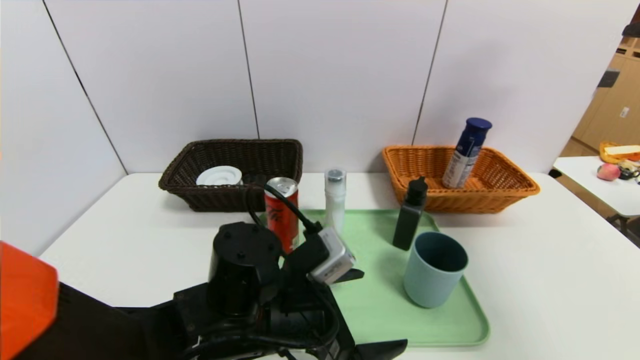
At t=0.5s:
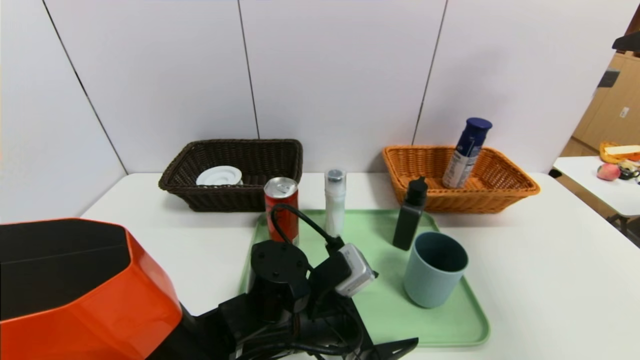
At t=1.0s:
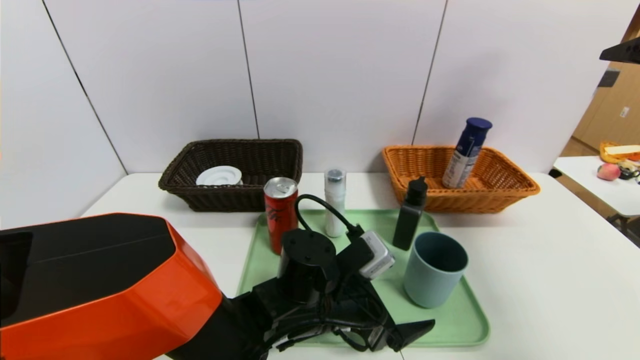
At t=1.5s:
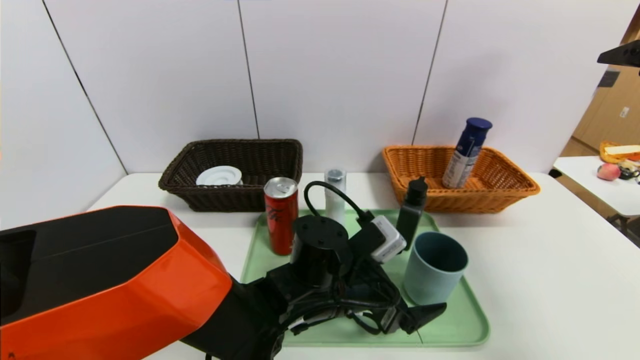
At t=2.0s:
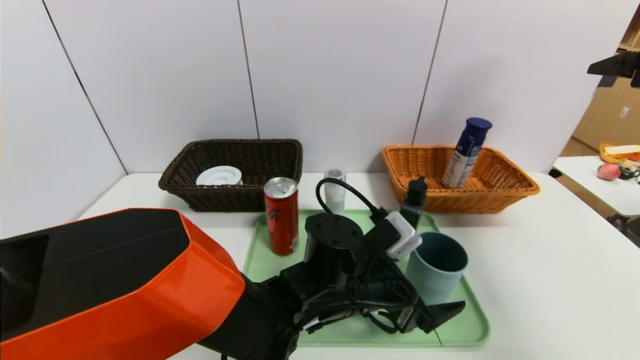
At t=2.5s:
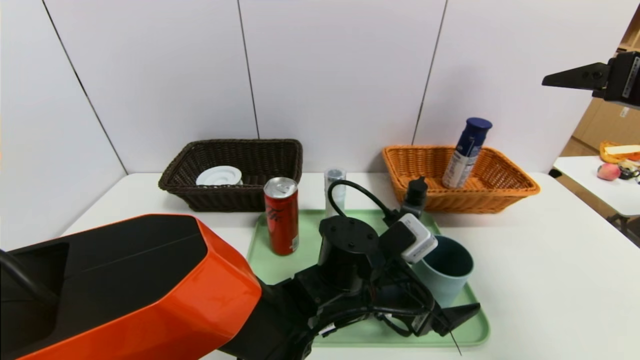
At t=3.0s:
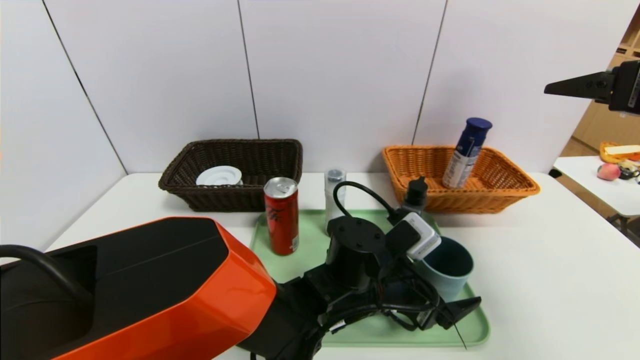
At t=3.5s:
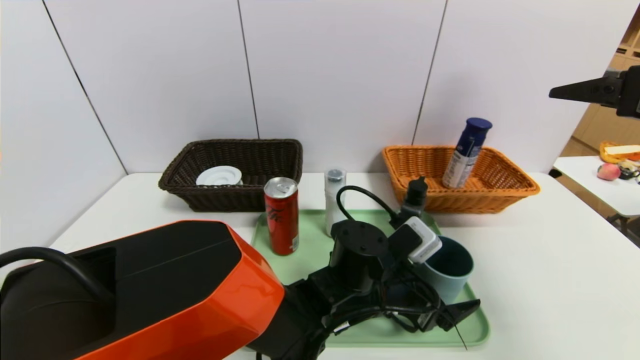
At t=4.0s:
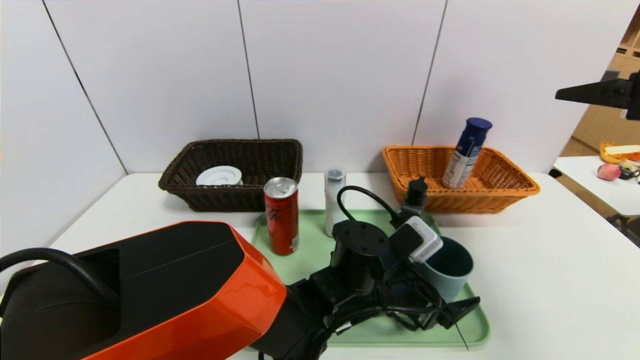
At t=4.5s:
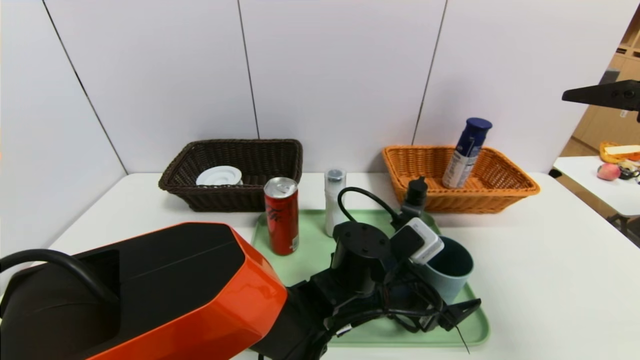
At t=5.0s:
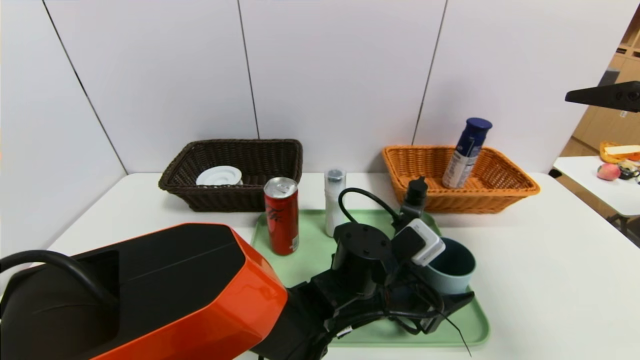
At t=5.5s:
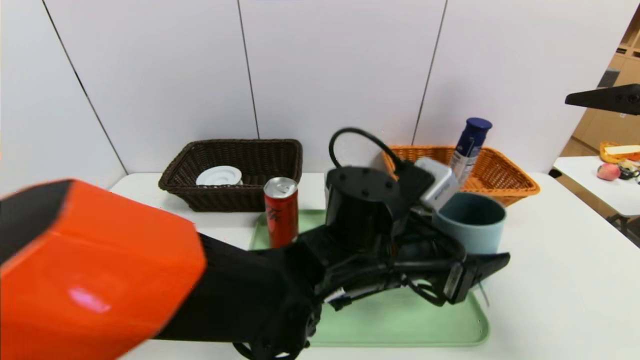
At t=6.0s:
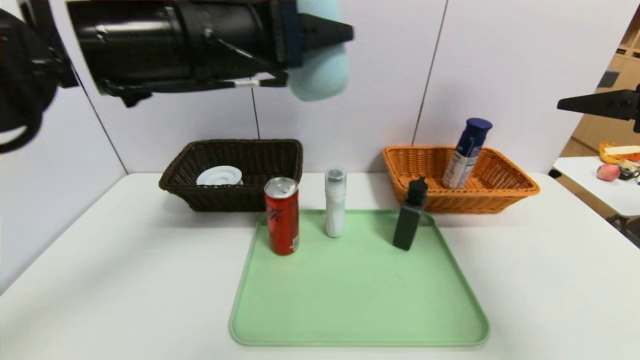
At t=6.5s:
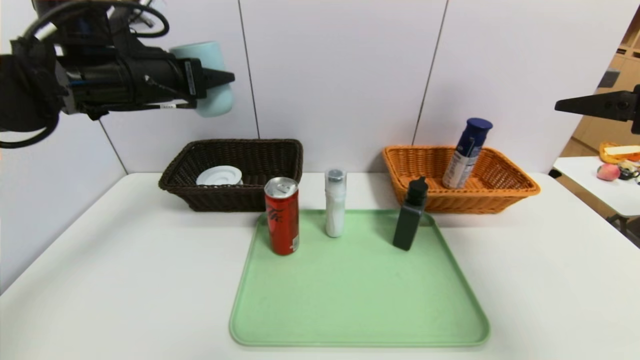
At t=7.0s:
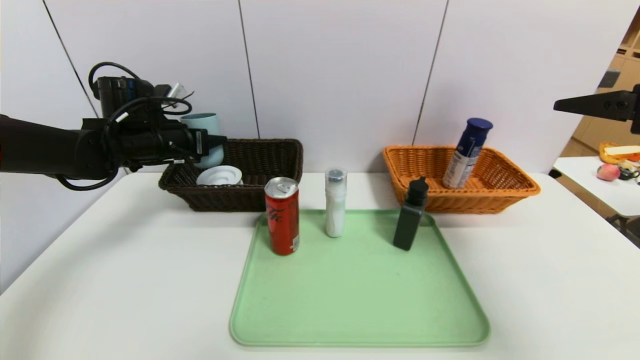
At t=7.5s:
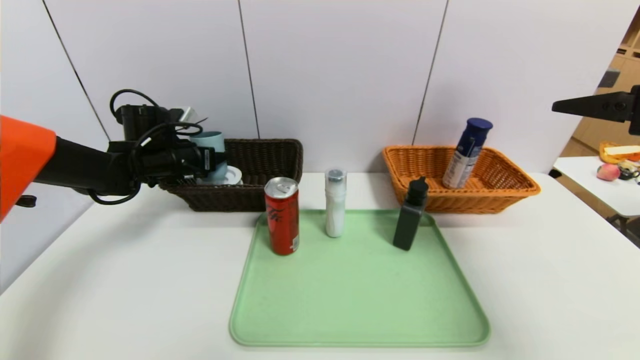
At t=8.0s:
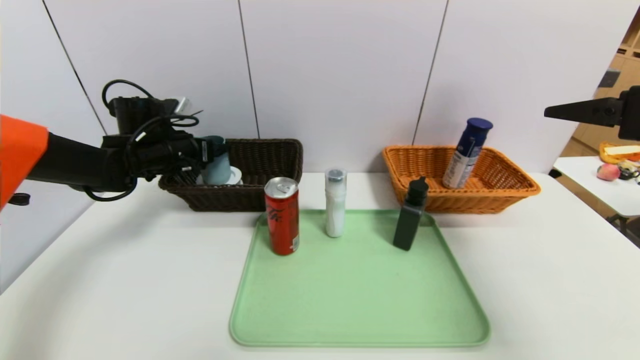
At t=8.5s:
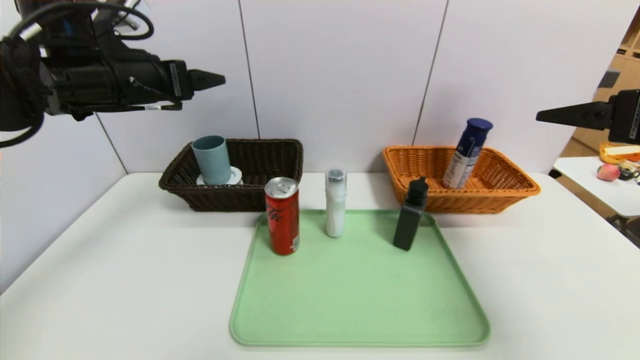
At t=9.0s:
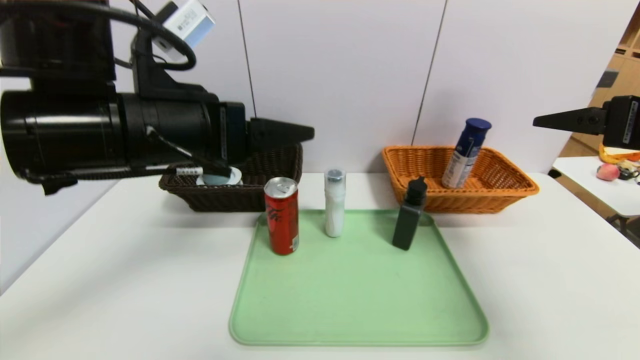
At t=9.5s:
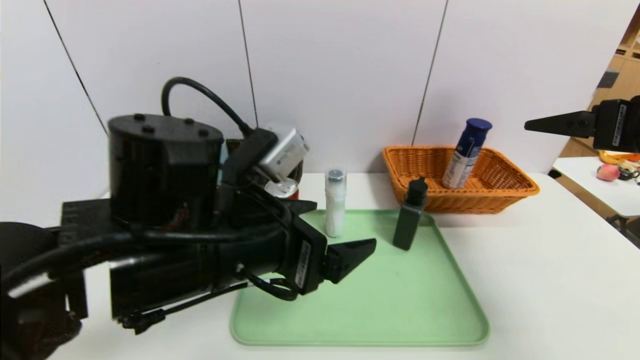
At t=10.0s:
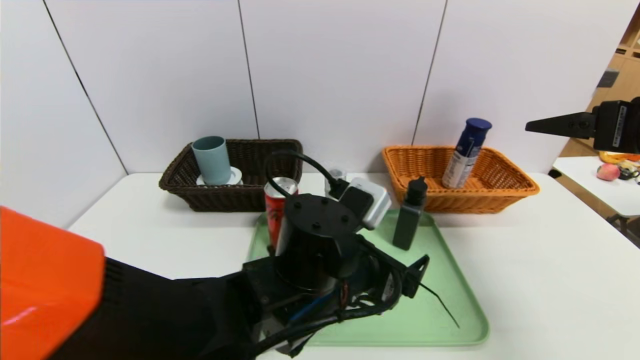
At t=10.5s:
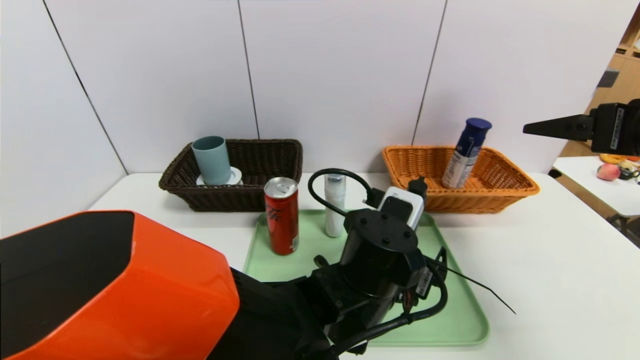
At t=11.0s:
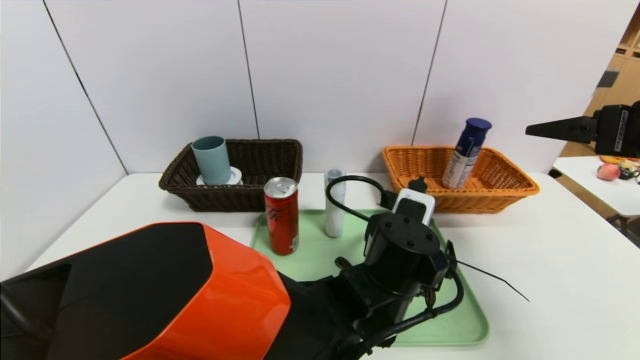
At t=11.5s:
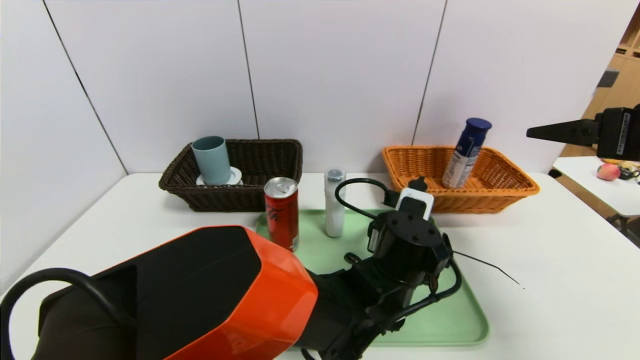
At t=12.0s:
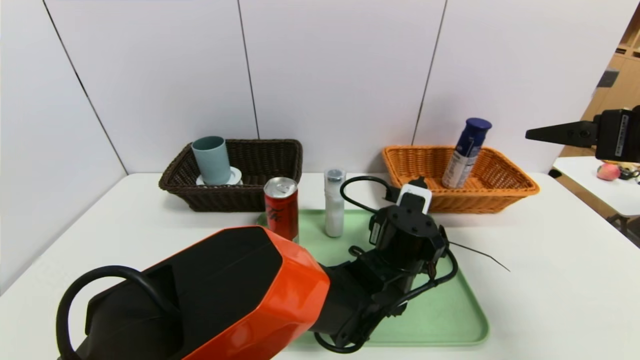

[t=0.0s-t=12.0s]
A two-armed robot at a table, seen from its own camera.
Task of the whole recording: place the food in the right basket with the right gripper, and place the non food items in the left basket with the left gripper.
Step, t=0.0s to t=8.5s: Grasp the blue cup and put it in the left basket.
t=0.0s to t=2.0s: The left gripper heads to the right, covering roughly 10 cm.
t=2.0s to t=4.0s: The grippers move only a little.
t=4.0s to t=6.0s: The left gripper heads upward and to the left, covering roughly 35 cm, and closes.
t=6.0s to t=8.0s: The left gripper goes some 30 cm downward, forward and to the left, and opens.
t=8.0s to t=10.0s: The left gripper moves to the right and backward, some 35 cm.
t=10.0s to t=12.0s: The left gripper goes some 15 cm to the right, forward and downward.

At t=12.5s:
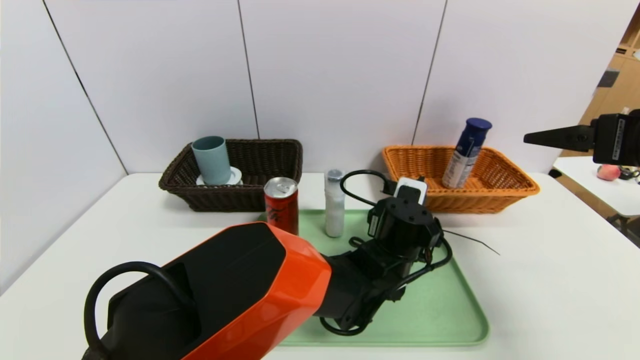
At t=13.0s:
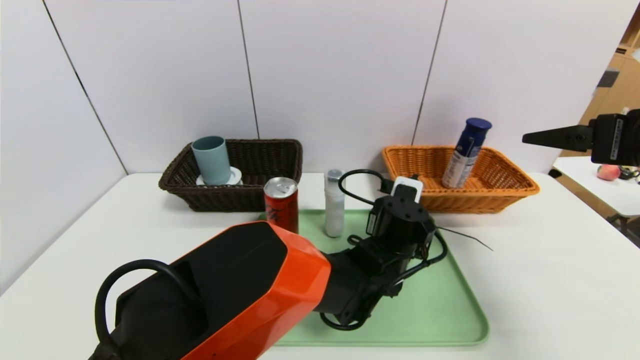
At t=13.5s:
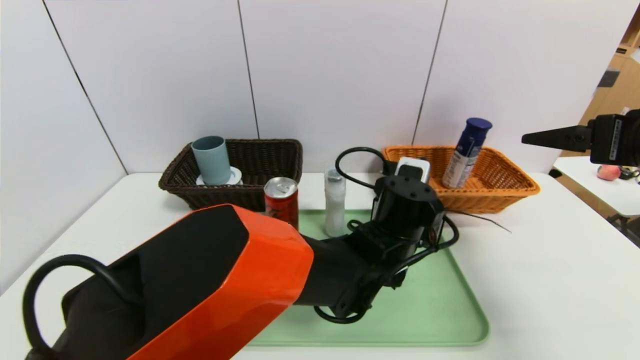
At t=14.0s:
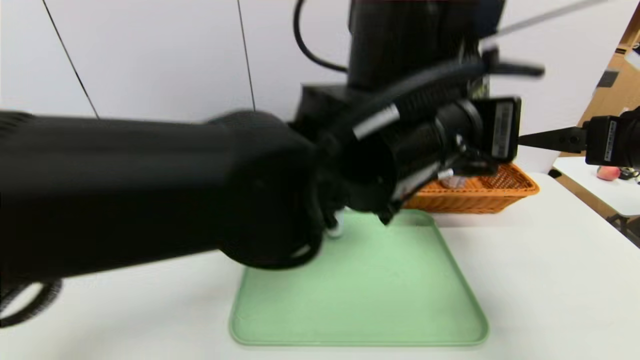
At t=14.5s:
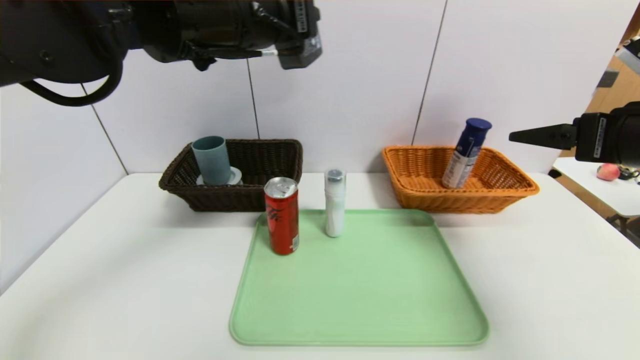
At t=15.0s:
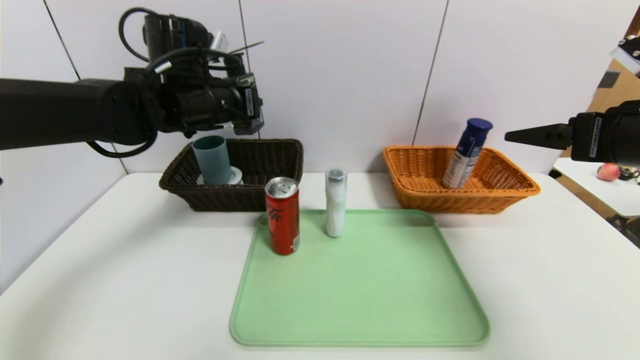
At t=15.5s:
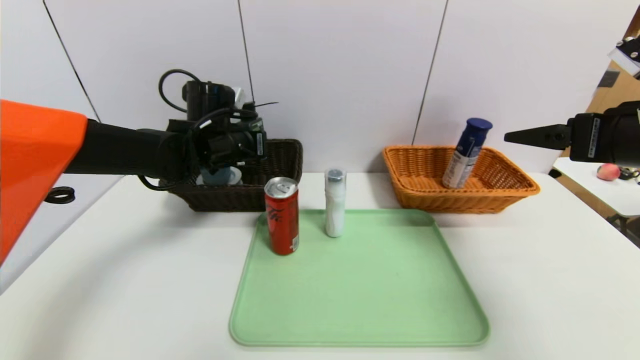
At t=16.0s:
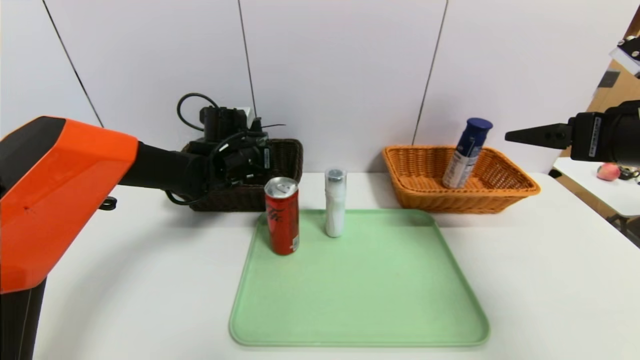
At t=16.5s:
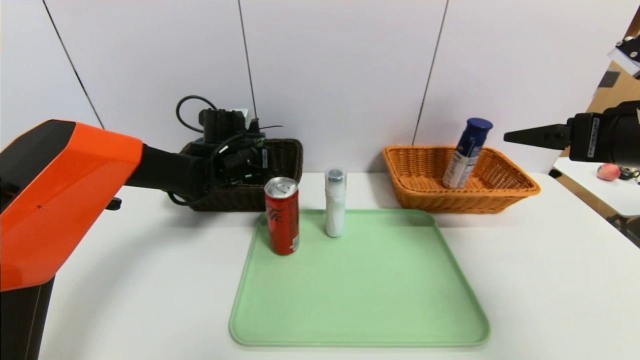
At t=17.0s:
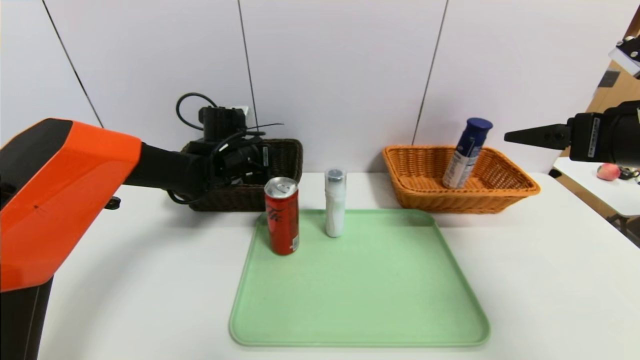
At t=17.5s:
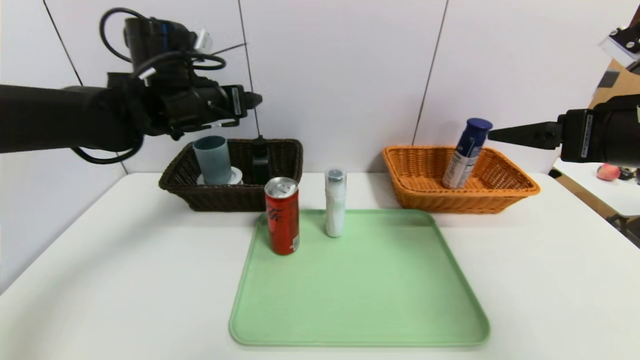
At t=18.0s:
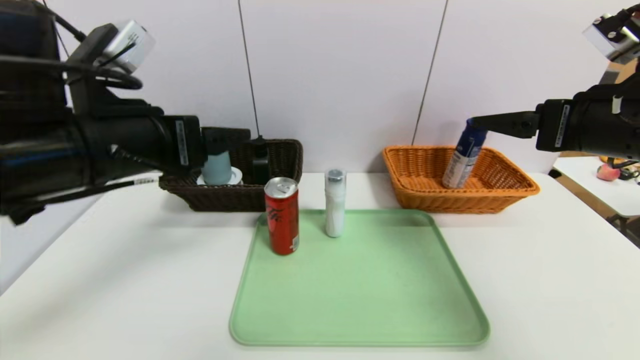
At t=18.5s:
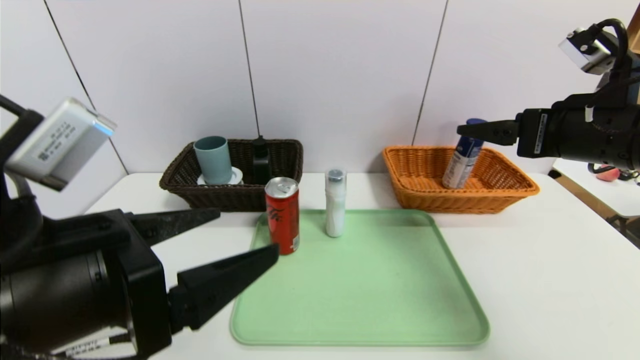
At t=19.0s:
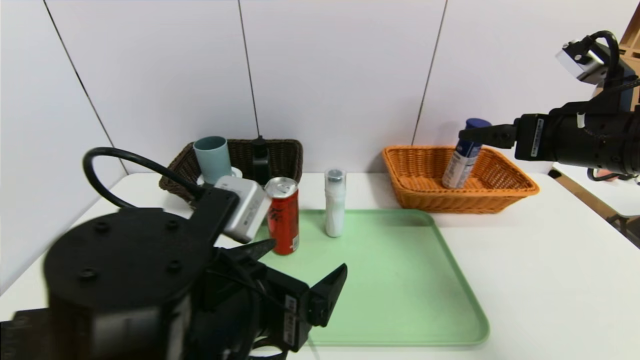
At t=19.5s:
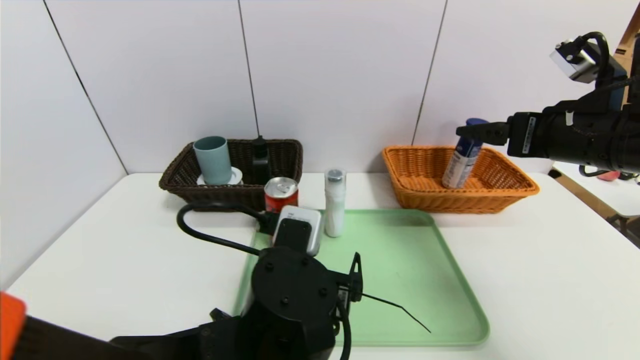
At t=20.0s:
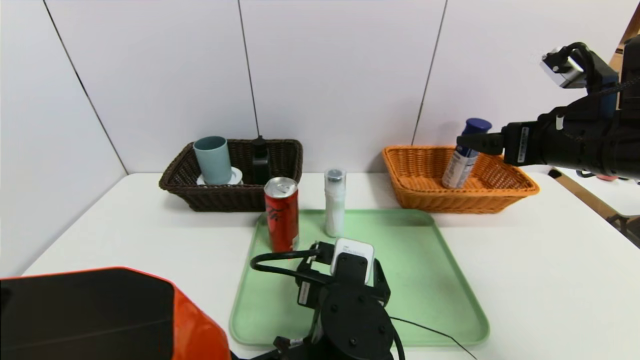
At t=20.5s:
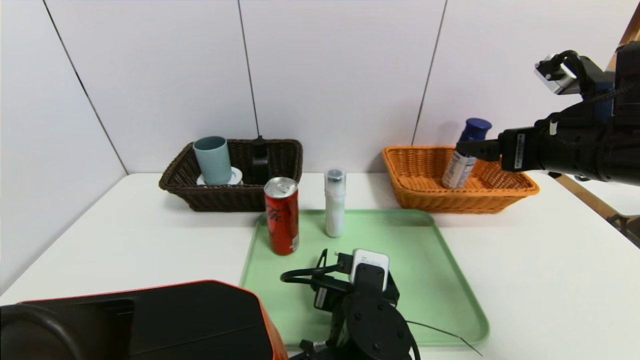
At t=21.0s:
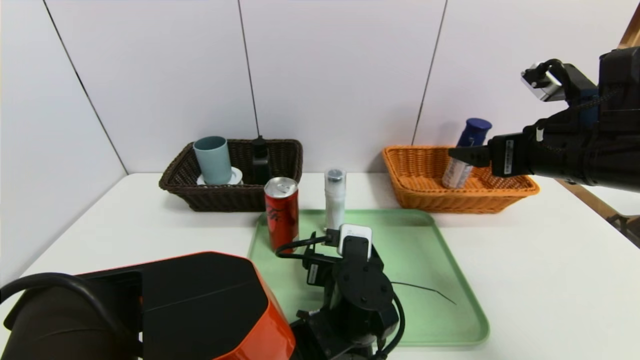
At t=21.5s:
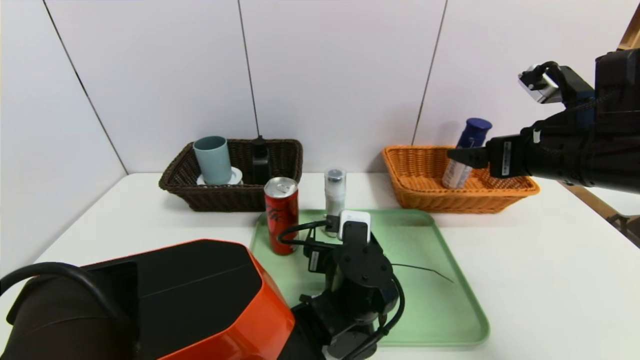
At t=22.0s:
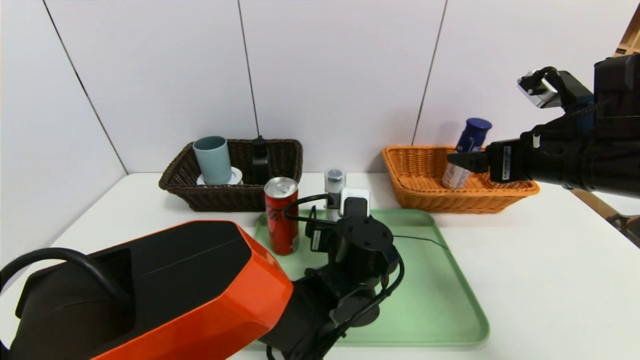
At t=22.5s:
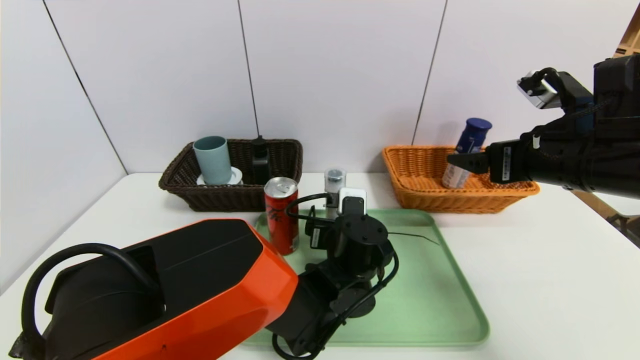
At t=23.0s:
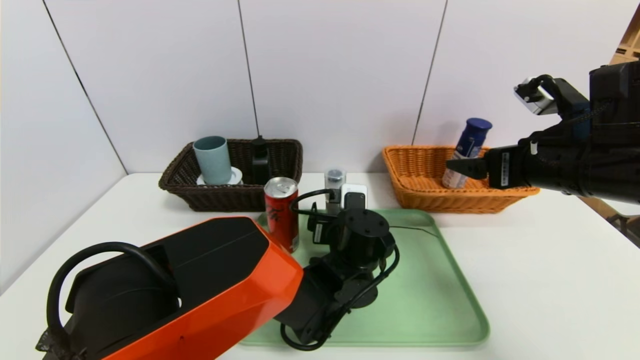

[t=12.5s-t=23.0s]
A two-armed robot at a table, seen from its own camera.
Task of the whole recording: place the food in the right basket with the right gripper, and place the non food items in the left basket with the left gripper.
Step, t=12.5s to t=17.5s: Grasp the hard cleanser and put it in the left basket.
t=12.5s to t=14.5s: The left gripper heads upward and to the left, covering some 35 cm, and closes its fingers.
t=14.5s to t=16.5s: The left gripper heads downward and forward, covering roughly 30 cm.
t=16.5s to t=19.0s: The left gripper heads backward, covering some 30 cm, and opens up.
t=19.0s to t=21.0s: The left gripper is displaced downward, to the right and forward by approximately 20 cm.
t=21.0s to t=23.0s: The left gripper moves forward, roughly 5 cm.
